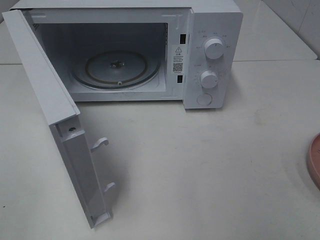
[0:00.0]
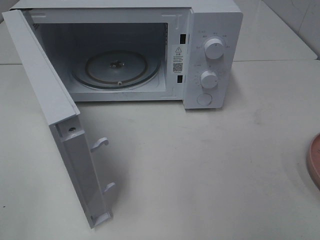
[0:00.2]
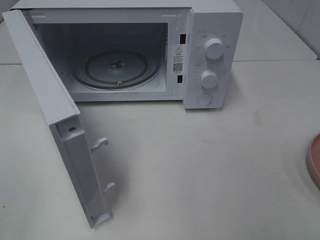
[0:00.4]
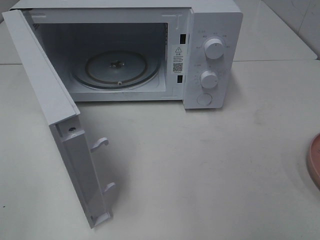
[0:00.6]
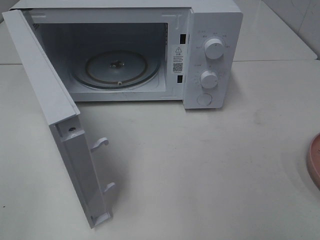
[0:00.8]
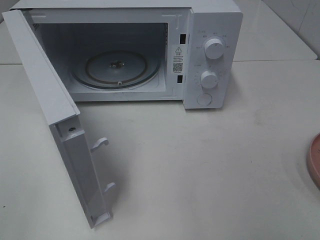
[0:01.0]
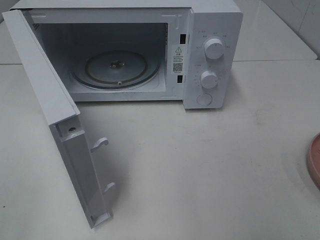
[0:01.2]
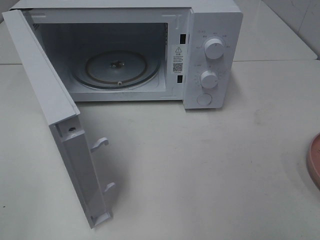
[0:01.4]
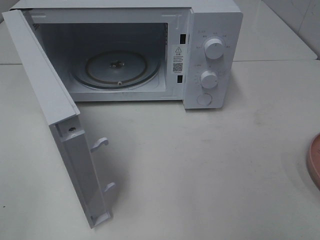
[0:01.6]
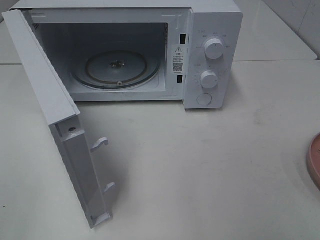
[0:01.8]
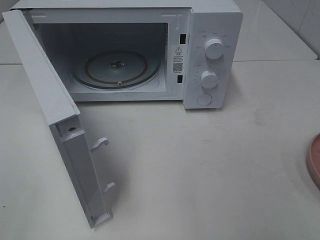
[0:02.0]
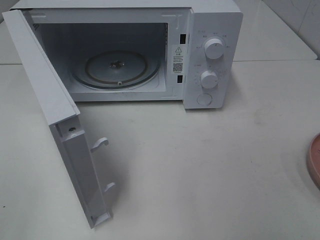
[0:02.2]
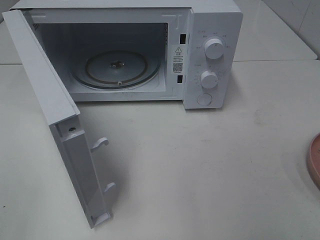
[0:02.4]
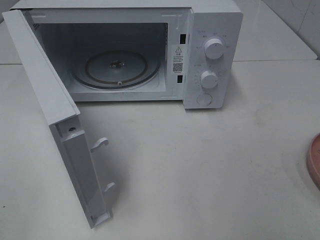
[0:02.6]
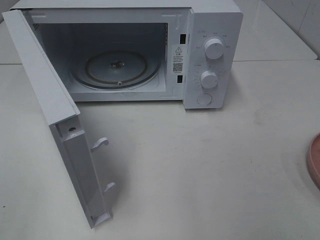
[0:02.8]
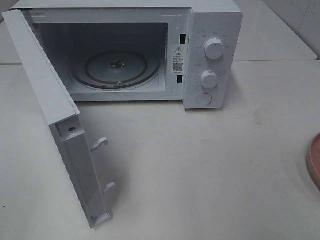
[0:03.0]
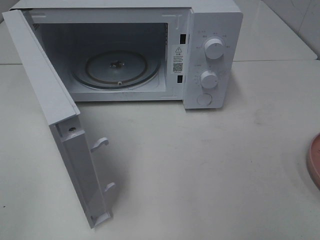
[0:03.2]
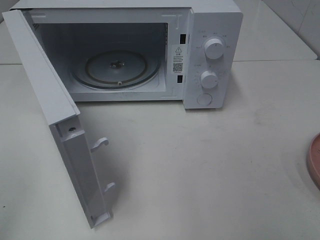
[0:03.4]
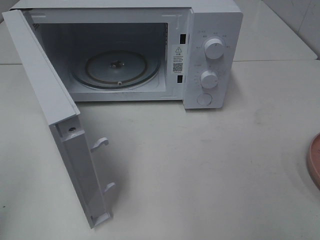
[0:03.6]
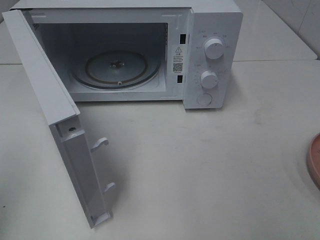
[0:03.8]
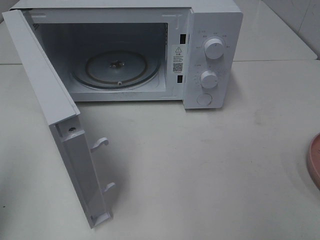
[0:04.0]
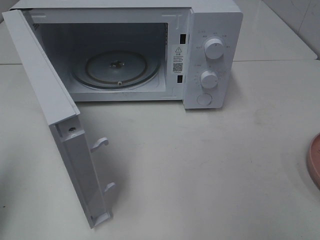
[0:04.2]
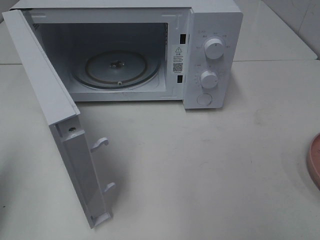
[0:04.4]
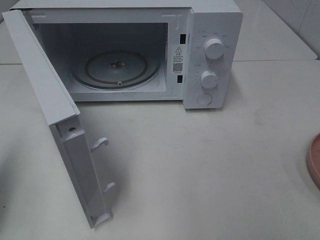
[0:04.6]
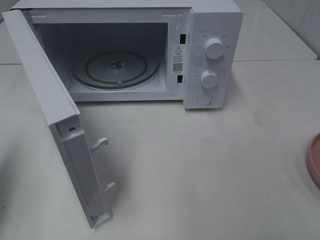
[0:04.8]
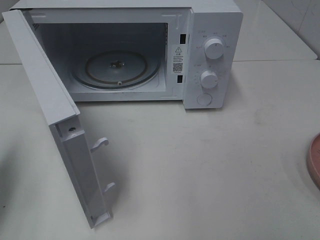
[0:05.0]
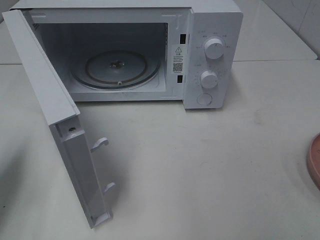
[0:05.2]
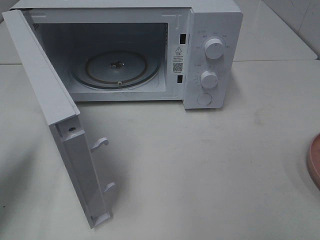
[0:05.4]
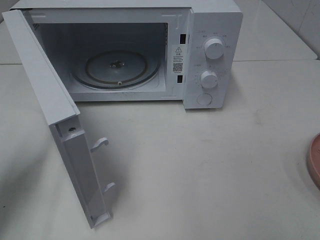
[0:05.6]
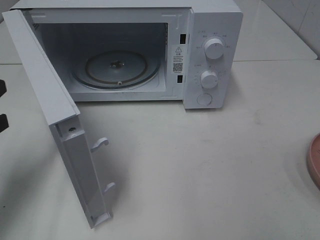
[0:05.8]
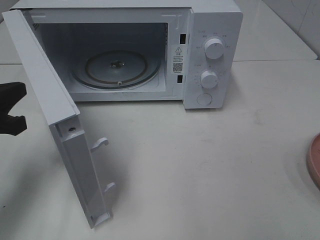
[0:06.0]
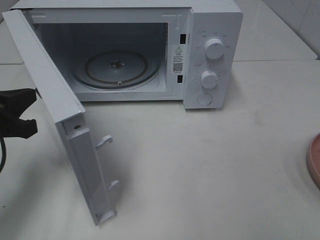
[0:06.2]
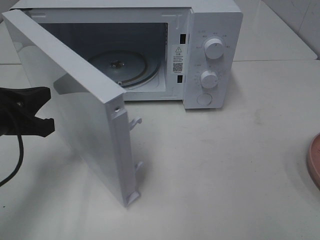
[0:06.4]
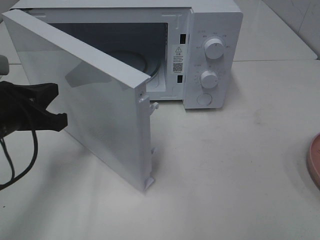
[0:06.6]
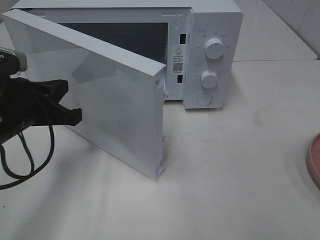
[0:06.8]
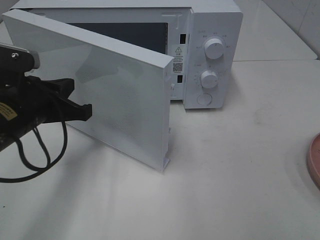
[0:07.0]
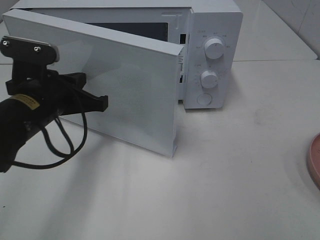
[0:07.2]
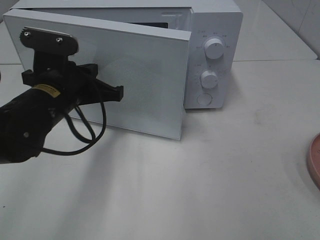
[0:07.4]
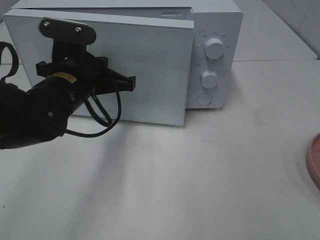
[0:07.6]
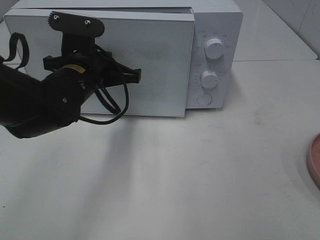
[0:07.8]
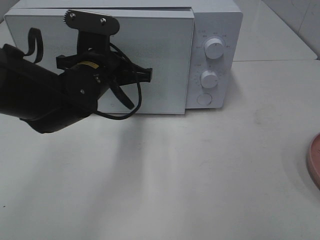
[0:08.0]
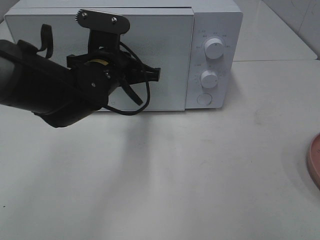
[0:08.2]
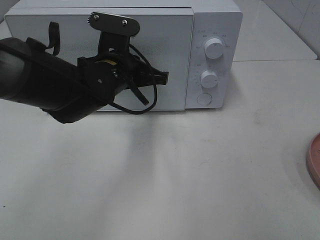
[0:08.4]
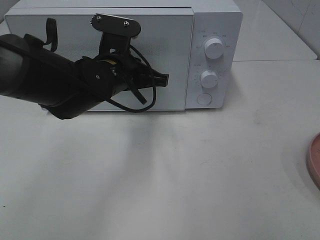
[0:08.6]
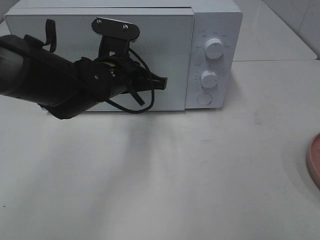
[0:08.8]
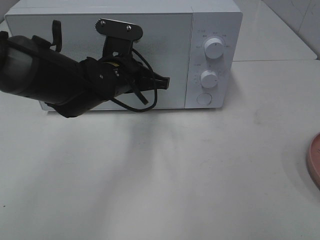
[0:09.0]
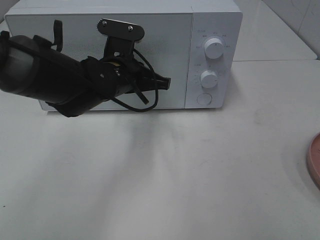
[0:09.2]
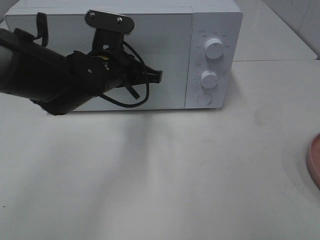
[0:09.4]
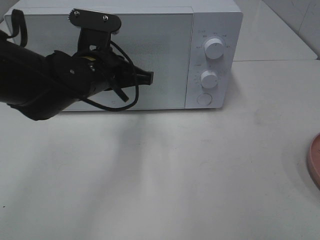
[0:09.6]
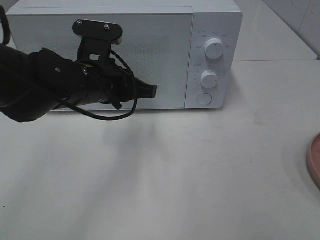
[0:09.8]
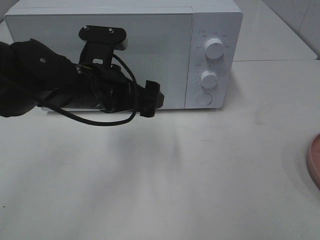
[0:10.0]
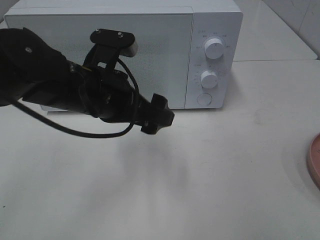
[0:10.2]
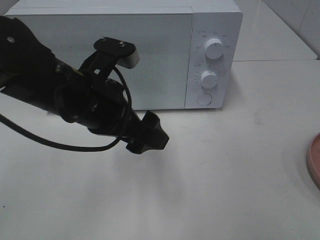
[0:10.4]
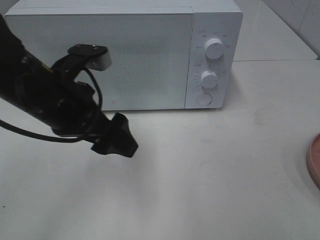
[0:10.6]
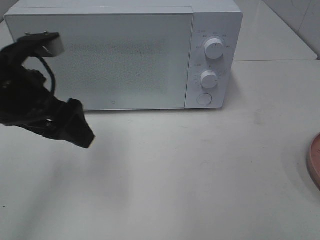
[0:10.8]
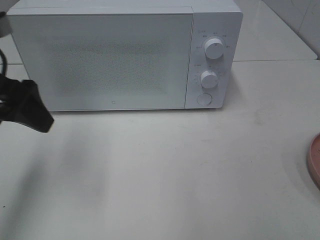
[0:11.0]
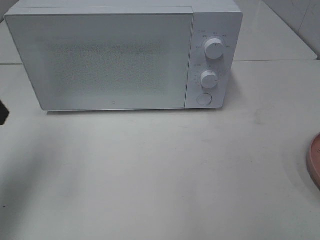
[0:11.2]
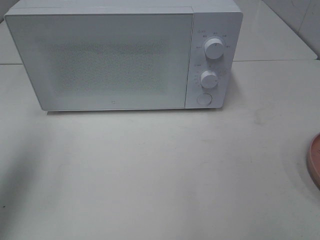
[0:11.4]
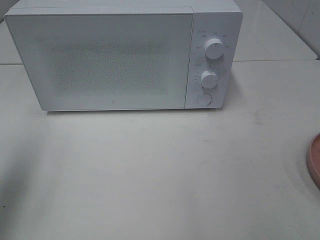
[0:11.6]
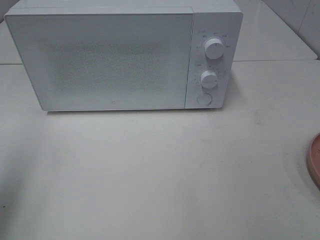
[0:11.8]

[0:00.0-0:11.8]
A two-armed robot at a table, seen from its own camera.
Task of the whole recording: Heat the burger.
Step, 0:00.0 to 0:10.0: Left hand: close the microwave door.
0:01.4 to 0:03.0: The two grippers keep their place.
0:03.0 to 0:04.4: The left gripper is displaced forward by approximately 15 cm, and closes up.
0:04.4 to 0:06.0: The left gripper shifts approximately 10 cm forward, downward and to the right.
0:06.0 to 0:07.4: The left gripper travels to the right and forward by about 15 cm.
0:07.4 to 0:08.8: The left gripper heads to the right and forward, covering about 10 cm.
0:08.8 to 0:10.4: The left gripper goes approximately 10 cm backward, and opens up.
0:10.4 to 0:11.8: The left gripper travels to the left, upward and backward by some 25 cm.

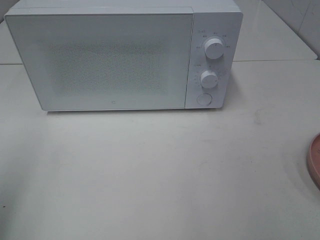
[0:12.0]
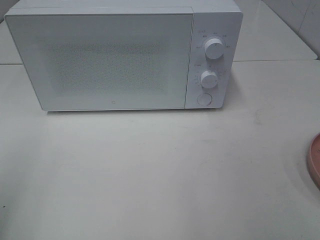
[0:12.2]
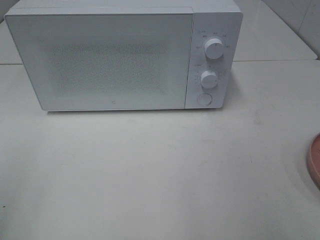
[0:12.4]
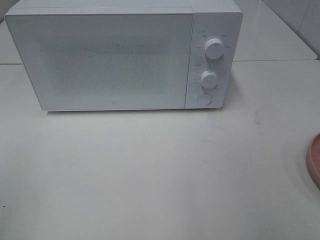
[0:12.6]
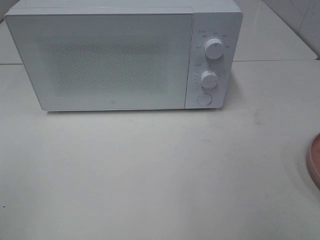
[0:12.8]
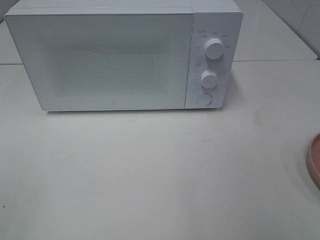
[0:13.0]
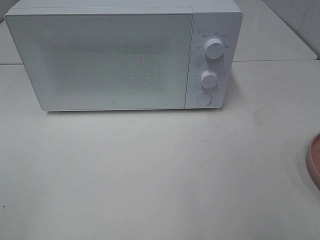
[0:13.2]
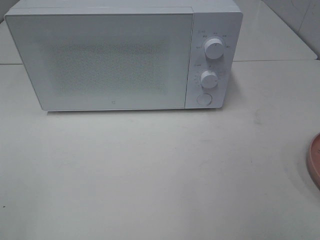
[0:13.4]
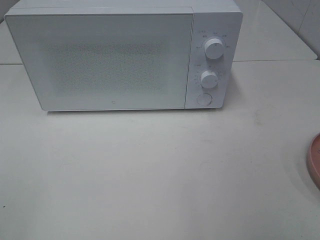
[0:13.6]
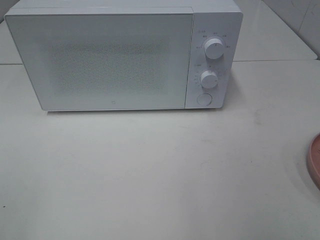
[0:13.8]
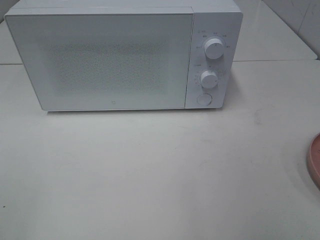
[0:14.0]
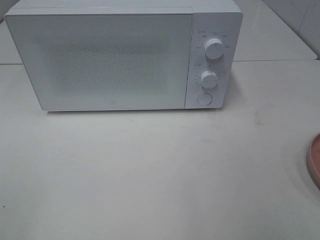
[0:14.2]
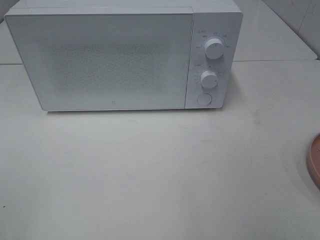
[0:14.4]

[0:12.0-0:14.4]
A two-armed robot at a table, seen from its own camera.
Task of the whole recording: Heat the burger.
0:12.0 to 0:13.2: The left gripper shifts roughly 10 cm backward.
0:13.2 to 0:14.4: Both grippers stay about where they are.

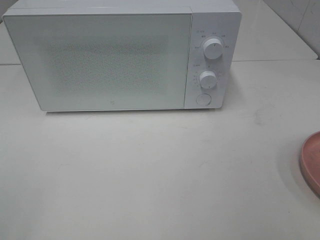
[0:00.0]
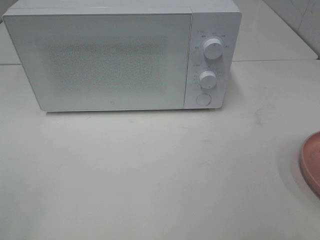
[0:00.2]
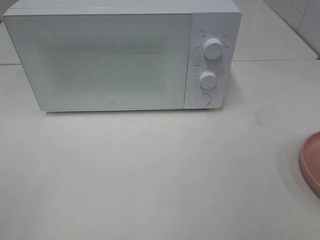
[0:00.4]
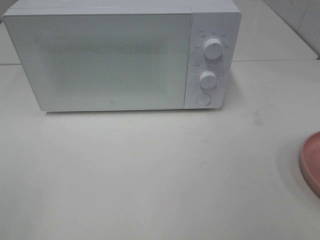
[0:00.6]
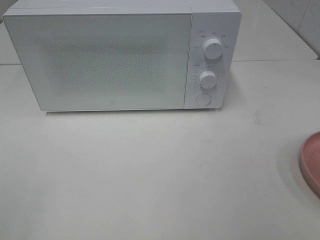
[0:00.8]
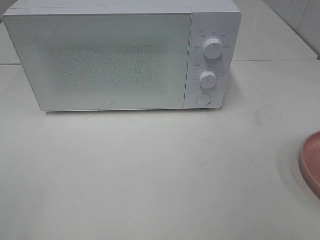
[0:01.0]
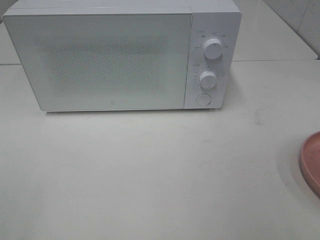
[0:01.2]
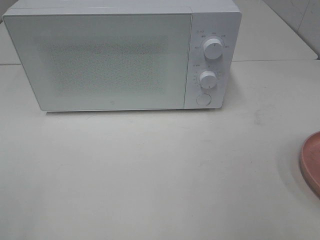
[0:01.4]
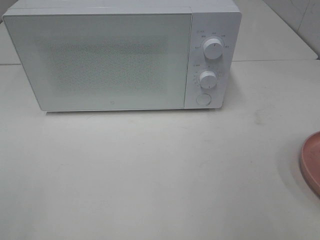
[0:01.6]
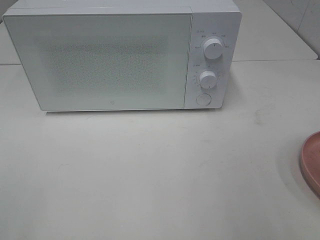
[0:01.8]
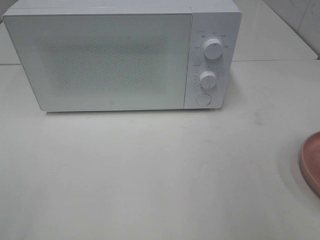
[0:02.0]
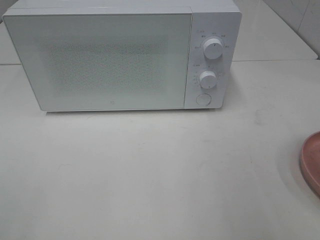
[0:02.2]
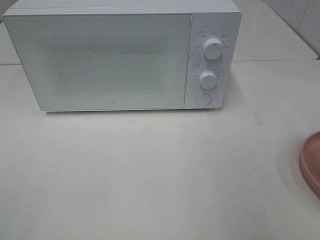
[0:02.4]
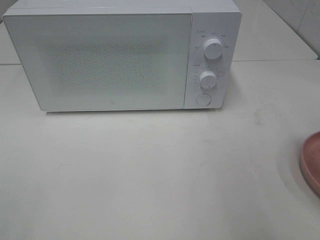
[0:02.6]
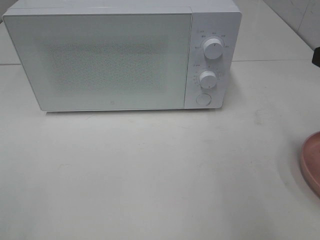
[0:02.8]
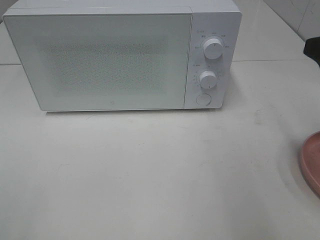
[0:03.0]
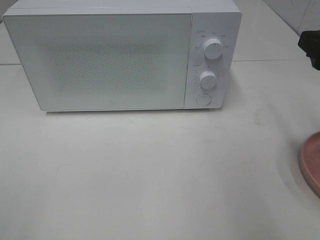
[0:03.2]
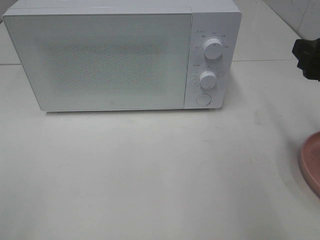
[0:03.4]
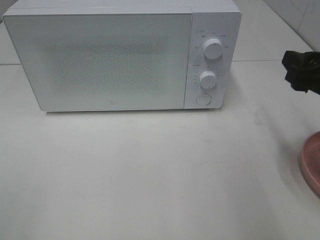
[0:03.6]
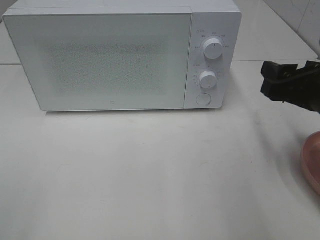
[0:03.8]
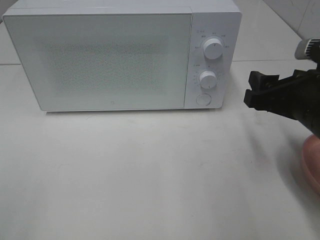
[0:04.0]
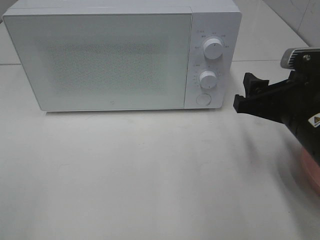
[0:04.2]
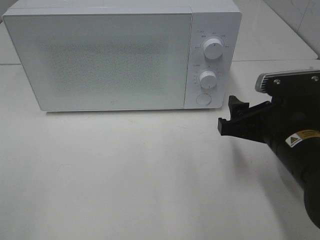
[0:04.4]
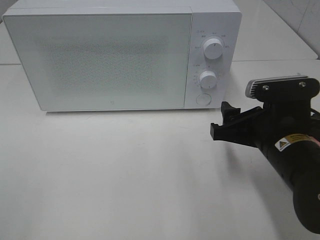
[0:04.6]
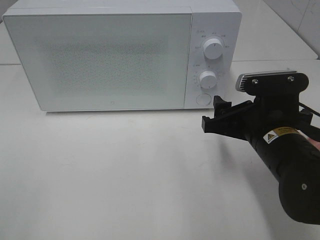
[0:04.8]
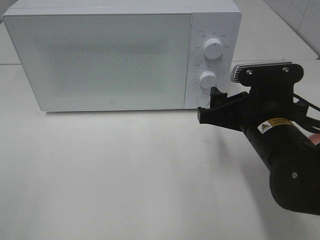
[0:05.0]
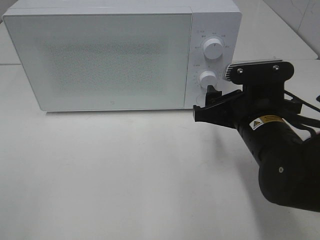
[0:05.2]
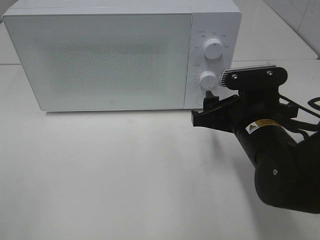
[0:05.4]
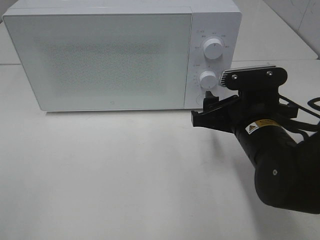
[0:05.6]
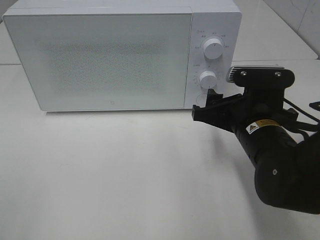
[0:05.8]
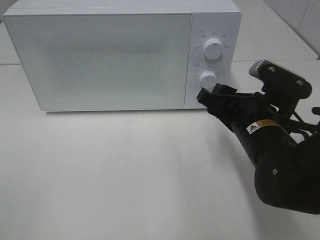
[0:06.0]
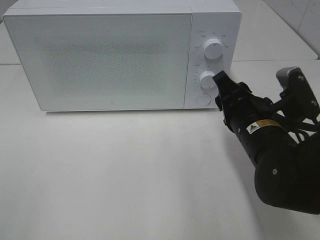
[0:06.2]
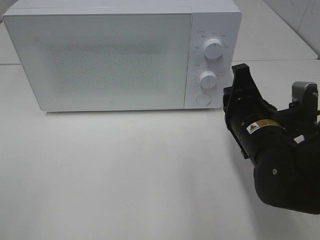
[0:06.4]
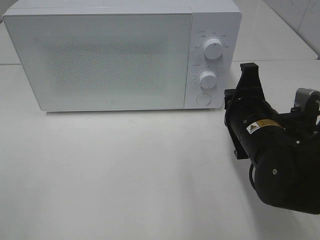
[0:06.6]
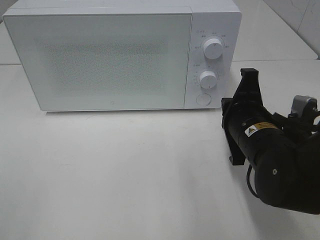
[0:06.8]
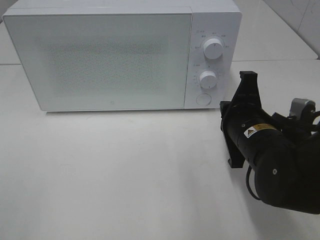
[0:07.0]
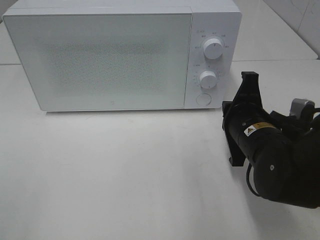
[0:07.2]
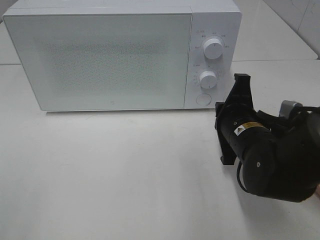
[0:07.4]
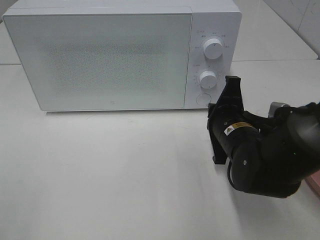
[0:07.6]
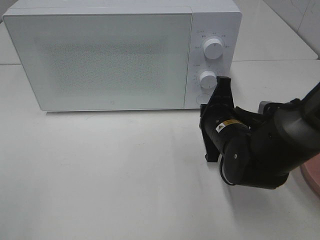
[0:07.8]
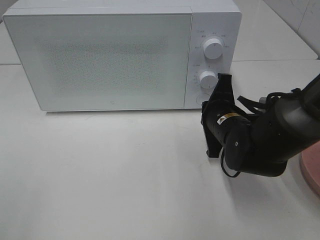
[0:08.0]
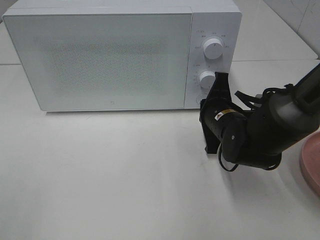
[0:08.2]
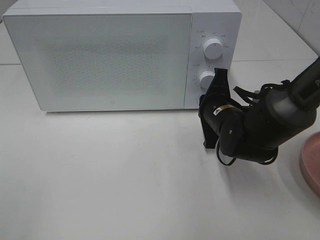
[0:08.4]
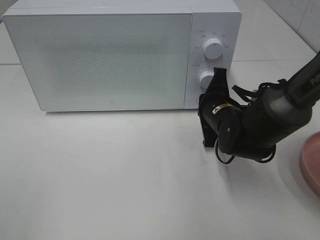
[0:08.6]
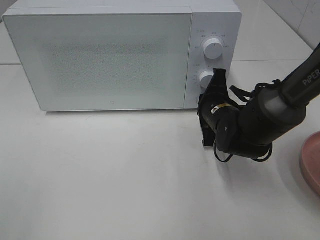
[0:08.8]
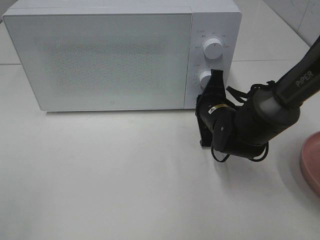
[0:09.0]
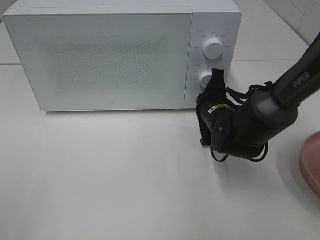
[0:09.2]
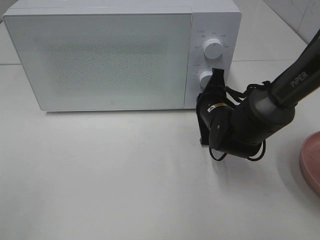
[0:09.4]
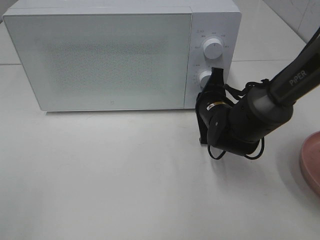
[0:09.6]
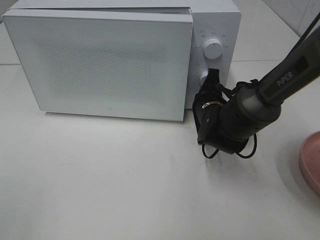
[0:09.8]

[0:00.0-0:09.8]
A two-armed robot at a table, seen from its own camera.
Task of the whole recording: Heat the burger.
0:02.8 to 0:04.2: The right gripper is displaced downward and to the left by approximately 10 cm.
0:04.2 to 0:05.6: The right gripper shifts approximately 5 cm to the left.
0:05.6 to 0:07.0: The right gripper closes up.
0:07.0 to 0:08.4: The right gripper moves forward, approximately 10 cm.
0:08.4 to 0:09.8: The grippers stay close to where they were, moving slightly.
